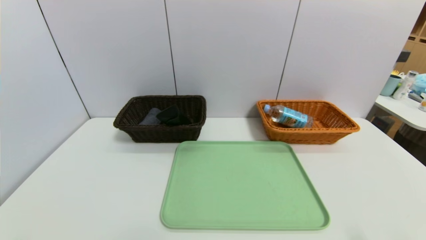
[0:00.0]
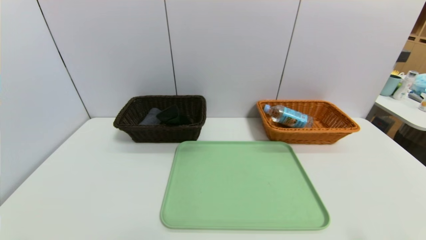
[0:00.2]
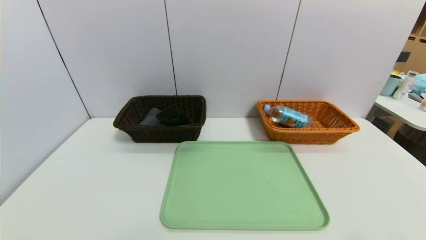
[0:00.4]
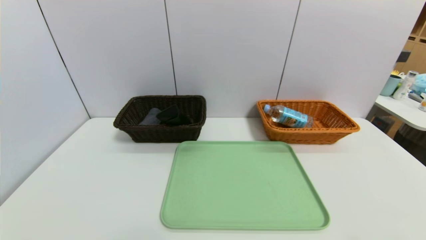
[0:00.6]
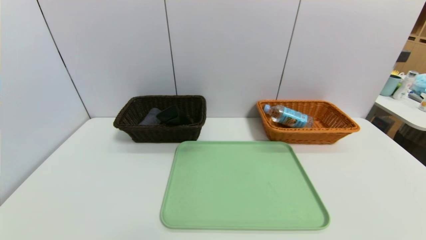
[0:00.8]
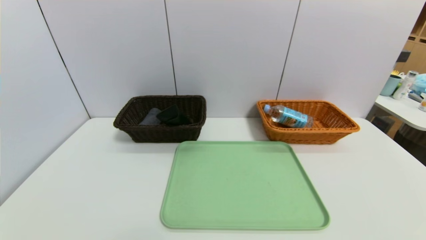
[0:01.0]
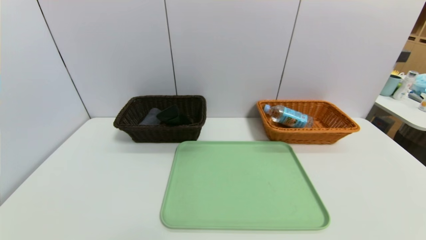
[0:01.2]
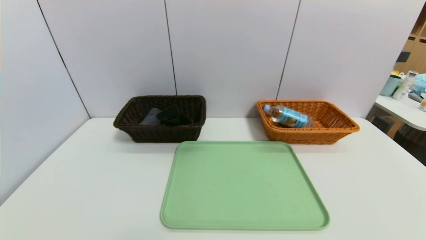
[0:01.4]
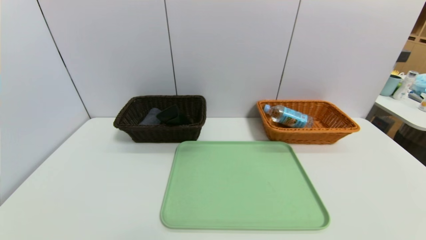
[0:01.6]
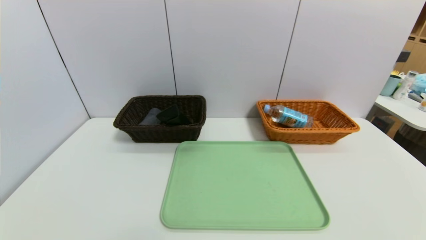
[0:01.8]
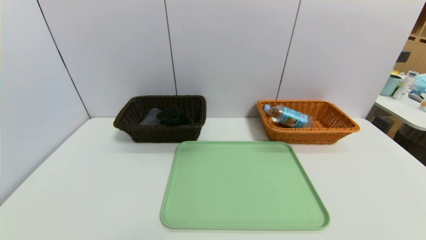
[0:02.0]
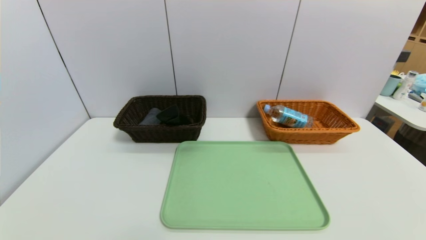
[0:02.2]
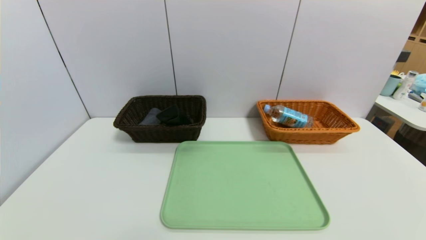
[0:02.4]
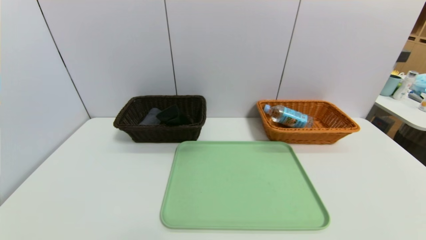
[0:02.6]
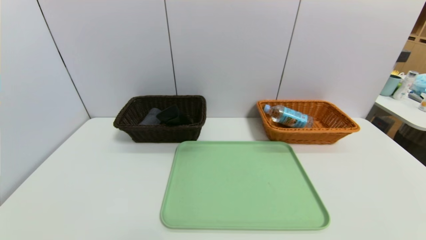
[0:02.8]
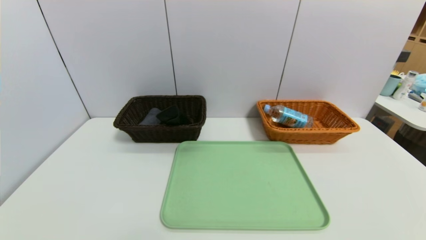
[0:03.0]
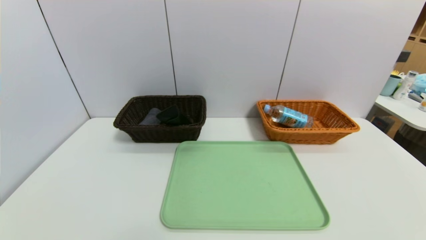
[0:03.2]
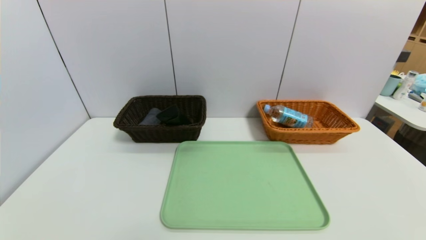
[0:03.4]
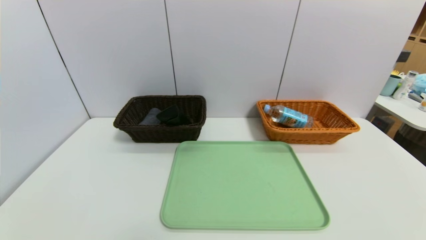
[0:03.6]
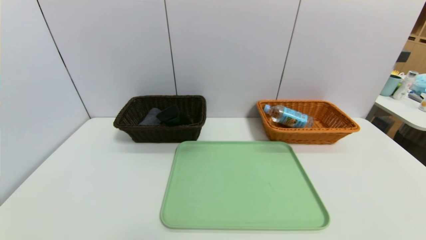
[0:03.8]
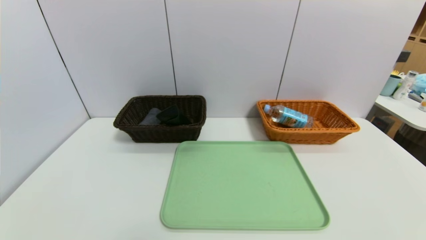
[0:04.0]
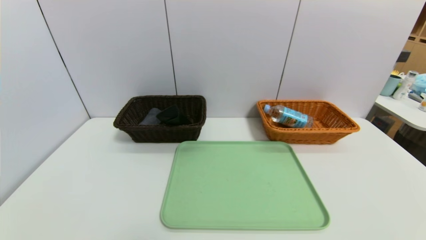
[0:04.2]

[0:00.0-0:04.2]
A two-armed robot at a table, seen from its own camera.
Task of the whole recording: place the food in the right basket with the right gripper, and place the non food items in the left basket with the left gripper.
0:02.8 to 0:04.2: Neither gripper changes place.

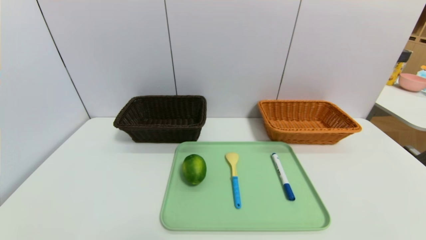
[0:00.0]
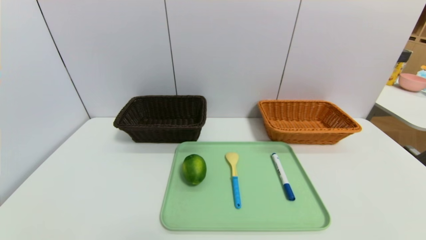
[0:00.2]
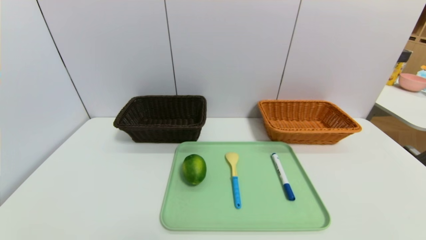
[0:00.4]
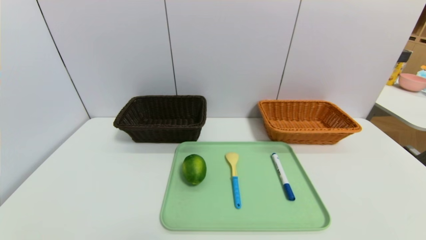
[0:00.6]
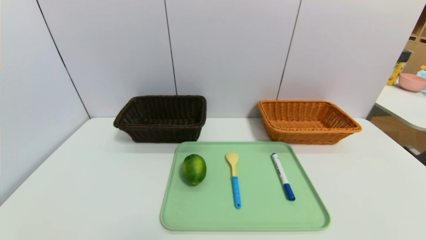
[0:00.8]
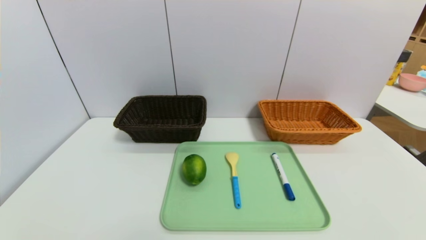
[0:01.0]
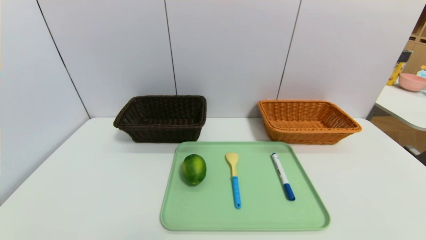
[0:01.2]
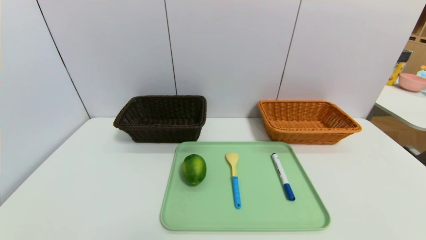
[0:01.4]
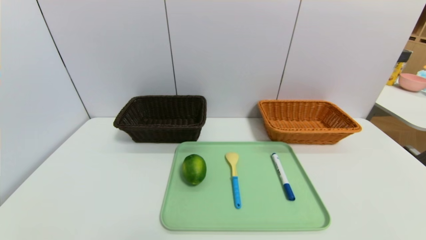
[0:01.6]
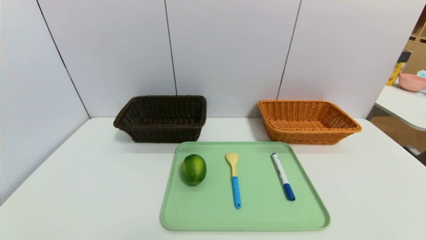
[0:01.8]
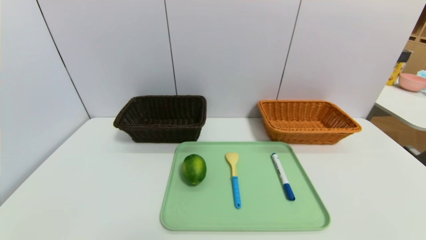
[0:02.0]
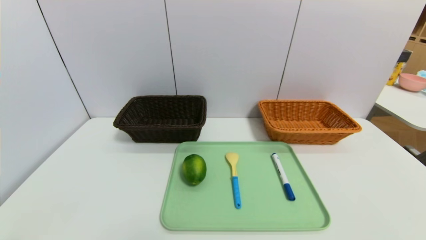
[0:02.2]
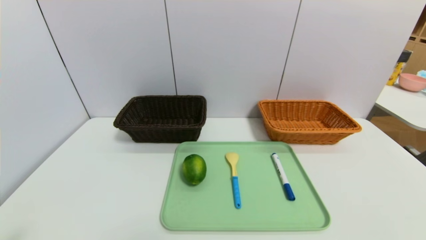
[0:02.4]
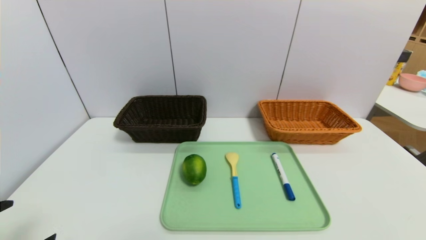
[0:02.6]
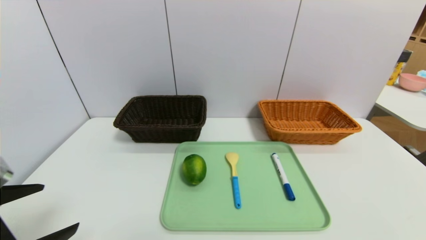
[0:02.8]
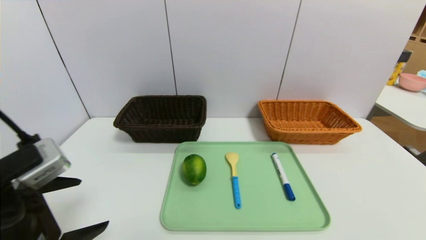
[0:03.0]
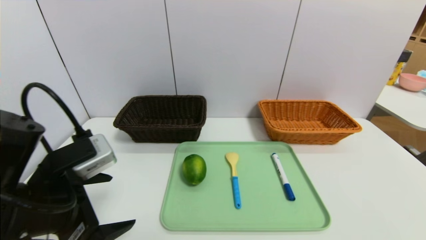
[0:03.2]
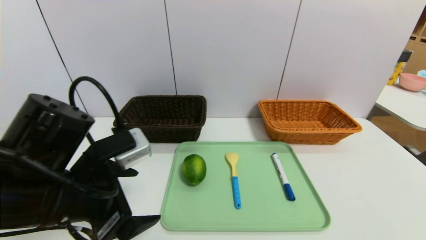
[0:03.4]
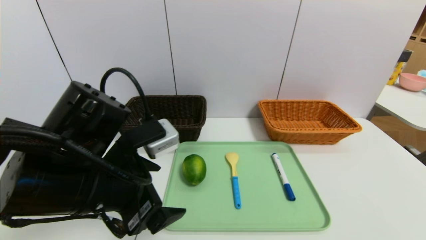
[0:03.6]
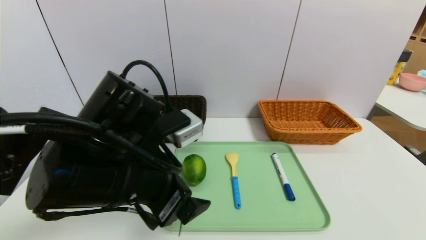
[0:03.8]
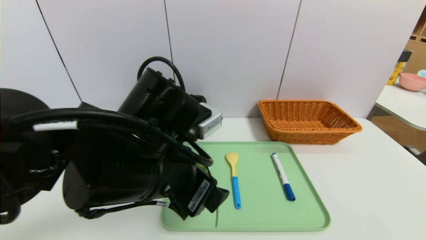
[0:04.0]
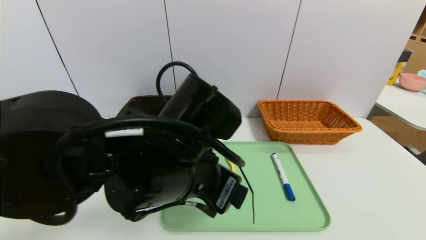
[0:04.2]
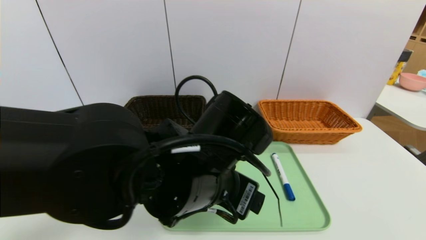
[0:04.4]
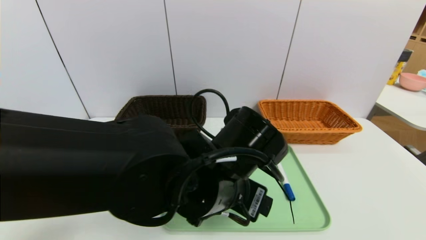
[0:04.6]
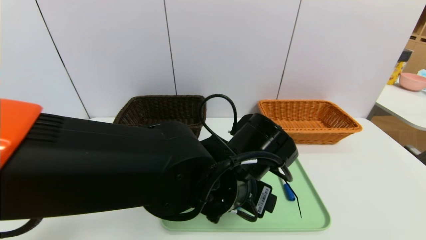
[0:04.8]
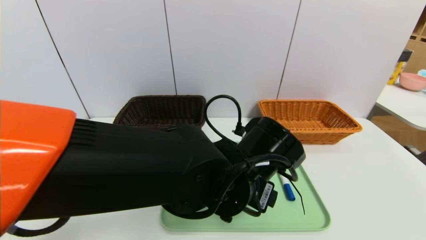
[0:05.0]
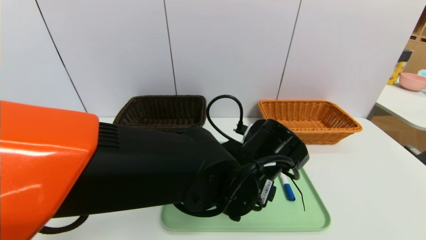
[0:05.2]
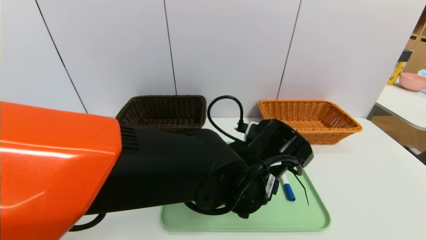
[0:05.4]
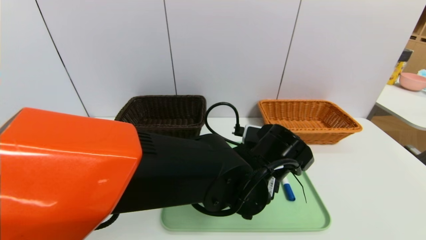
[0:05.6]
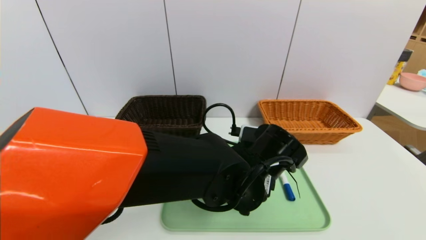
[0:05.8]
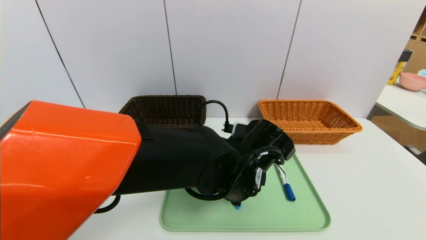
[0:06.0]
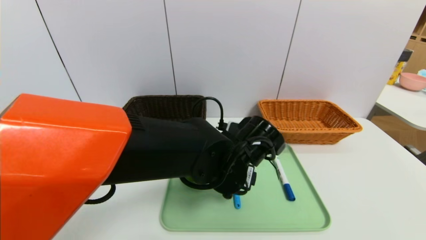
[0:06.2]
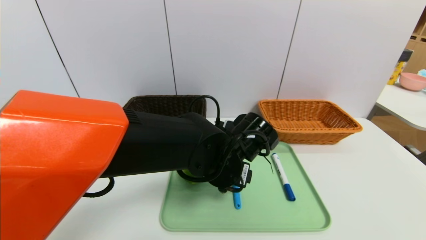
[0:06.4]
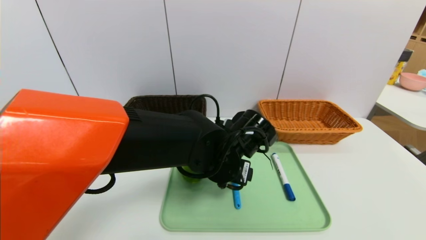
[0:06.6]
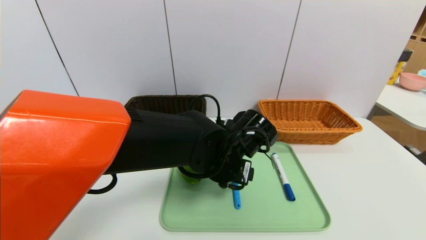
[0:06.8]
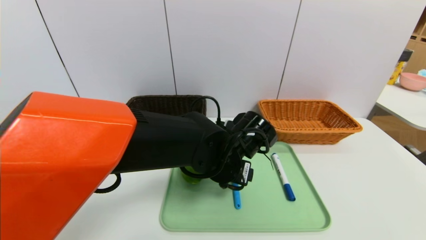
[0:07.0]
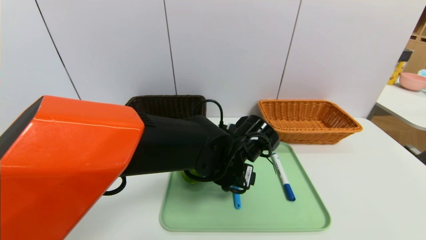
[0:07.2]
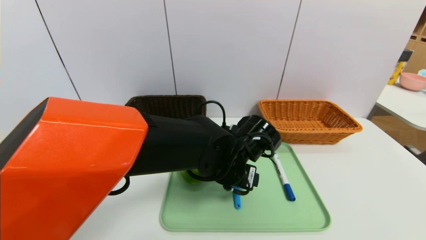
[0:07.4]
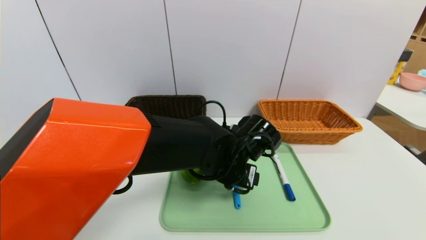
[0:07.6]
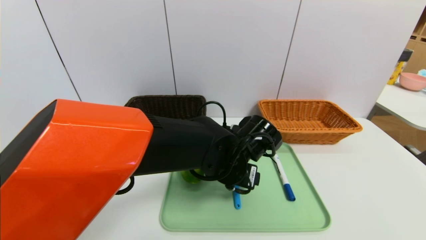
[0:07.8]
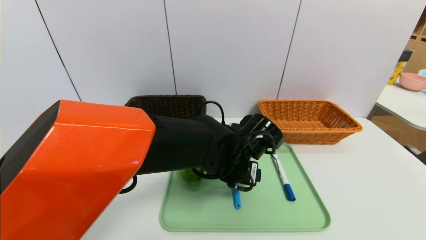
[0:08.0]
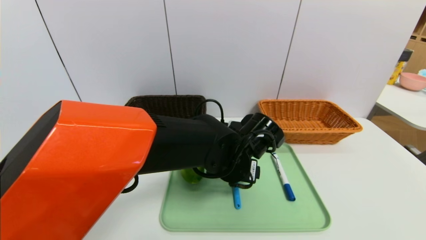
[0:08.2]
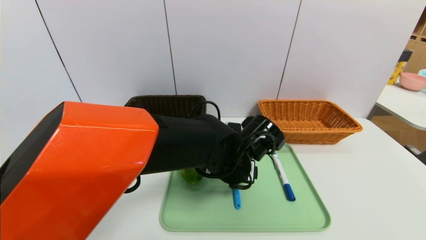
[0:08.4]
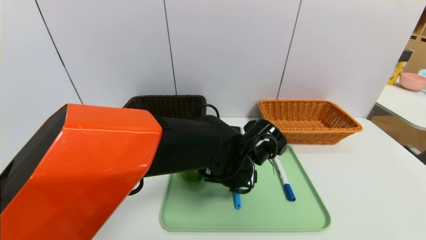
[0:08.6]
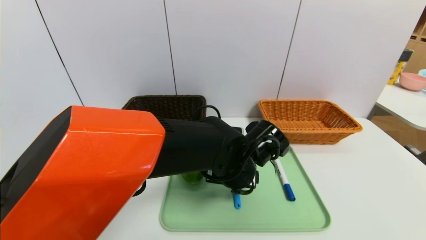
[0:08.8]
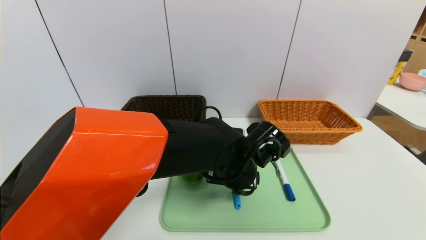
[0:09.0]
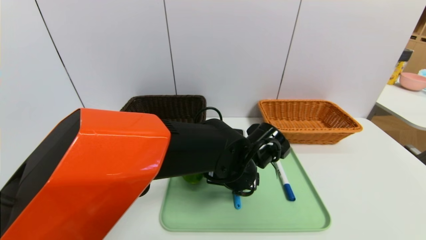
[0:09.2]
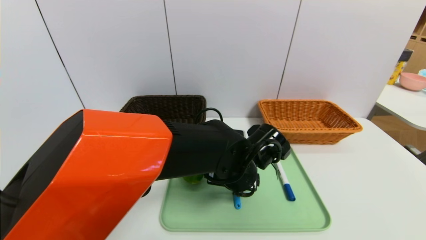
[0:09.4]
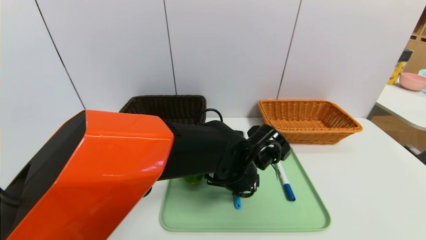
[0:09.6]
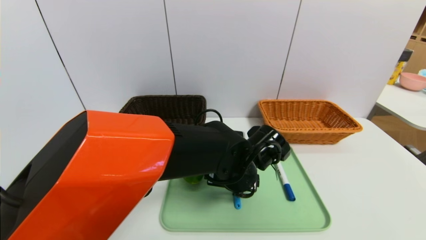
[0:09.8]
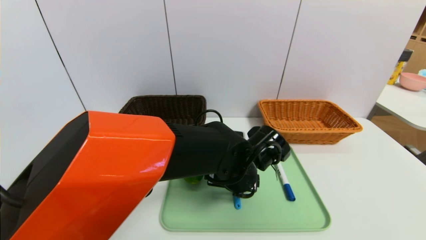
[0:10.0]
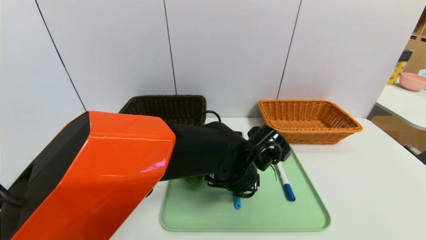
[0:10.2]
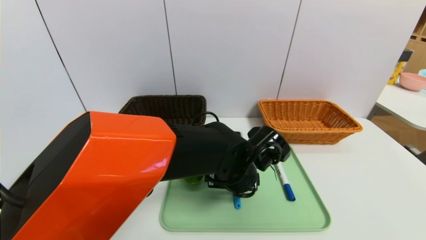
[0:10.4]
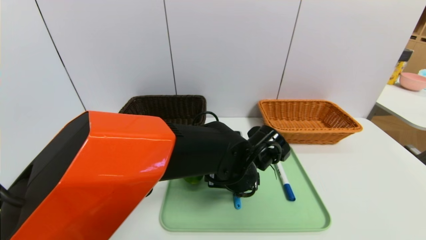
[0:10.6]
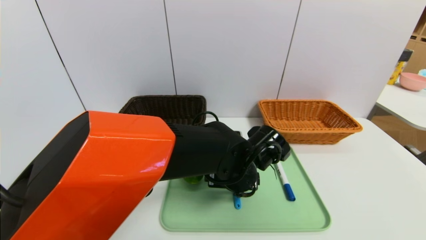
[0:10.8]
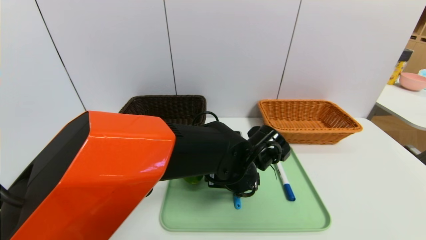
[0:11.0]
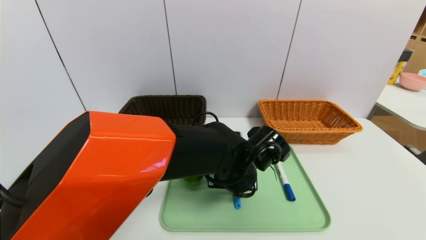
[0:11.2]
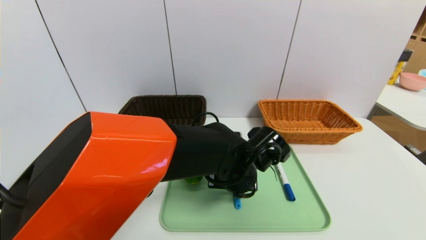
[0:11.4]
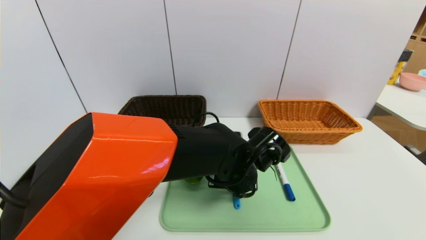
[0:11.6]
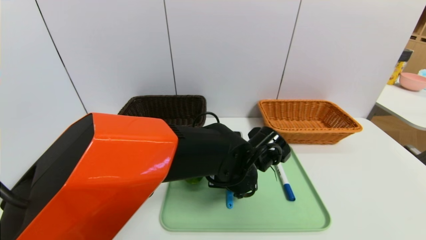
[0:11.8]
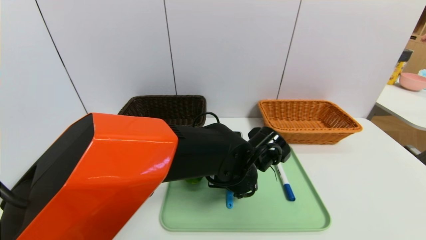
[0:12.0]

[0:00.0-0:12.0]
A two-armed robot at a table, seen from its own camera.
Task of the whole recording: place the food in the right basket with the right gripper, and place the non food items in the left basket with the left gripper.
0:00.0 to 0:01.6: Neither gripper changes place.
0:01.6 to 0:03.0: The left gripper heads upward and forward, covering approximately 20 cm.
0:03.0 to 0:04.4: The left gripper is displaced to the right by some 25 cm.
0:04.4 to 0:06.0: The left gripper travels downward, forward and to the right by some 10 cm.
0:06.0 to 0:09.0: The grippers make only small movements.
0:09.0 to 0:10.4: Both grippers stay about where they are.
0:10.4 to 0:12.0: The left gripper closes its fingers.
